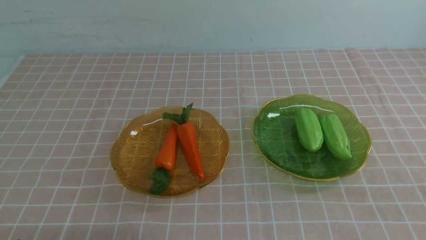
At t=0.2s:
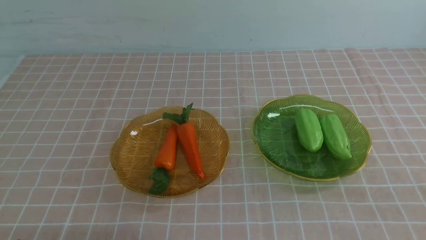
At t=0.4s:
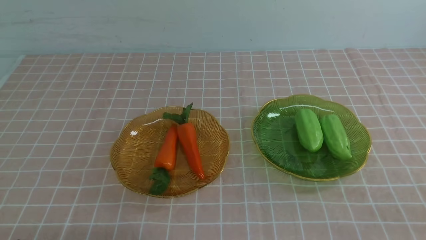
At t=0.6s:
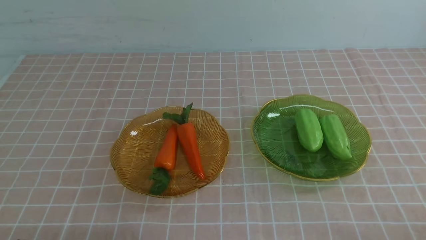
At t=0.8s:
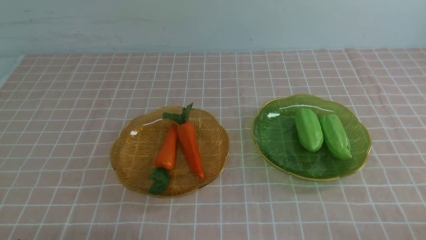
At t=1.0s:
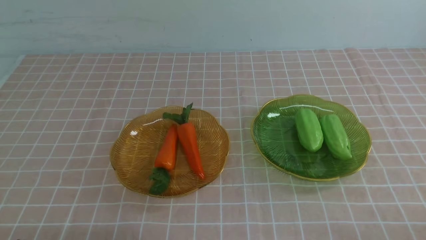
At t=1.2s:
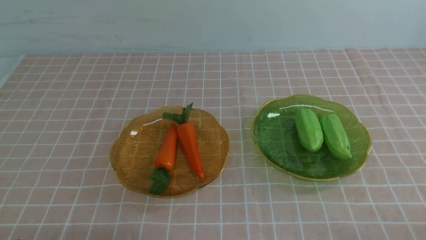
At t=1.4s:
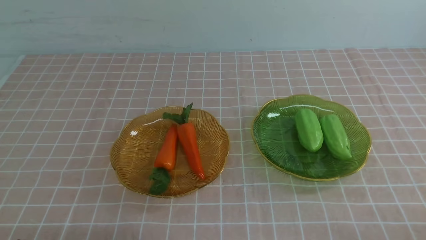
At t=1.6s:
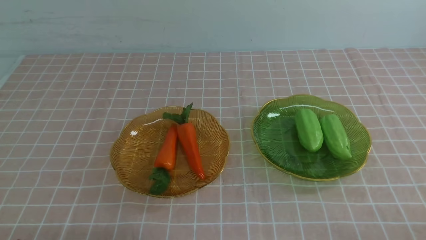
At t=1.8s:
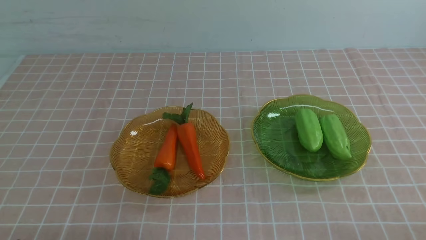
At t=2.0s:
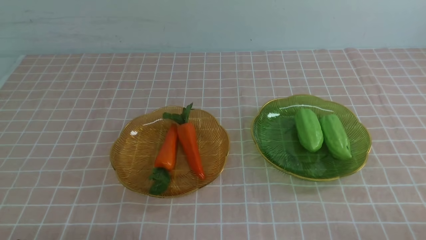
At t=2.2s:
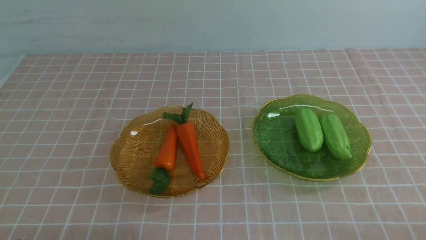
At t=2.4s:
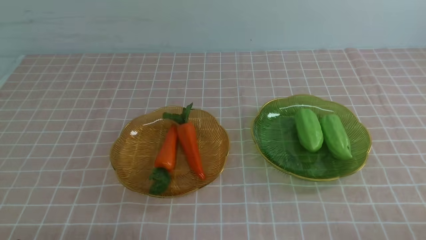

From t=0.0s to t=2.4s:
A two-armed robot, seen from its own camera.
From t=1.2s to t=2.4s: Both grippers stay about where they are.
